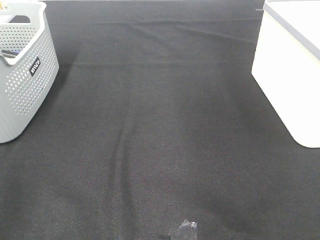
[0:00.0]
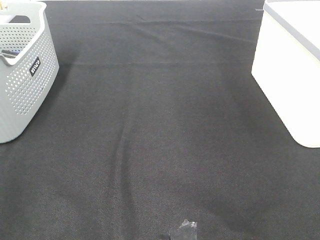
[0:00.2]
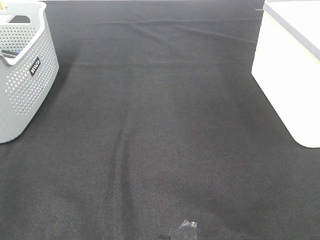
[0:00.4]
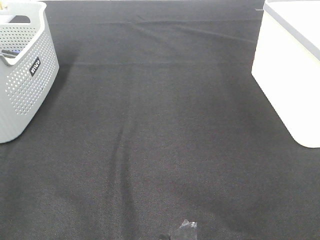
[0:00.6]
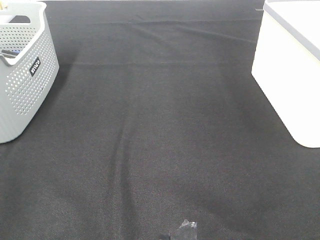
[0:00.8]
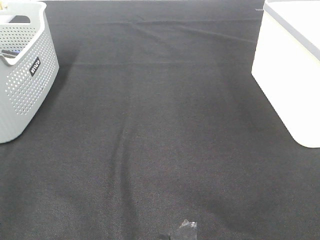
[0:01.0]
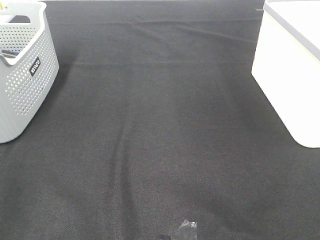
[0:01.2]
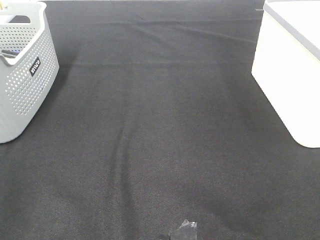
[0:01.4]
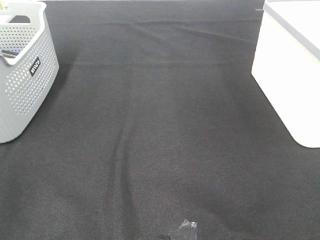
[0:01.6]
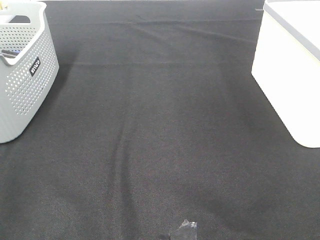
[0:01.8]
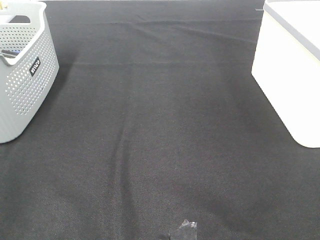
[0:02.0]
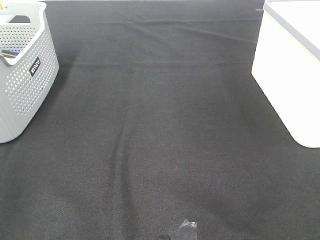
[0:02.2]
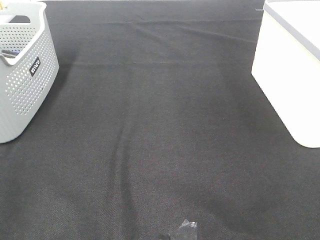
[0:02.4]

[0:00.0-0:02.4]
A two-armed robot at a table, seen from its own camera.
0:01.2 to 0:02.4: The two grippers keep their place.

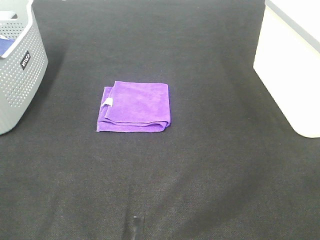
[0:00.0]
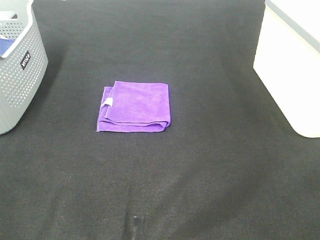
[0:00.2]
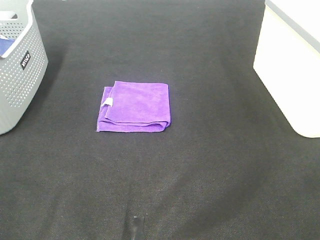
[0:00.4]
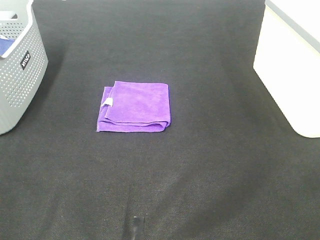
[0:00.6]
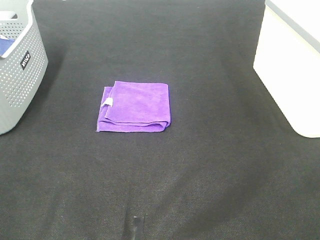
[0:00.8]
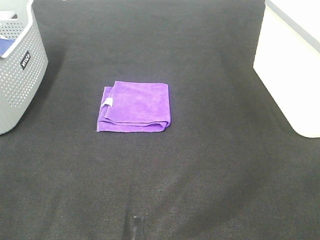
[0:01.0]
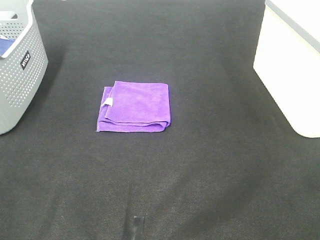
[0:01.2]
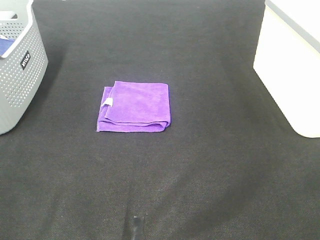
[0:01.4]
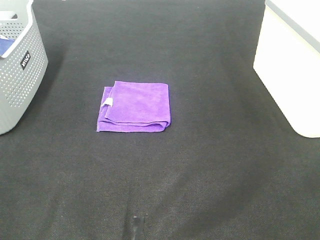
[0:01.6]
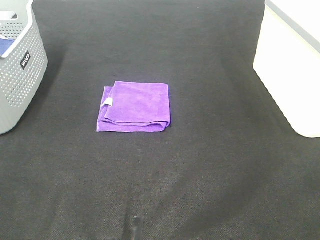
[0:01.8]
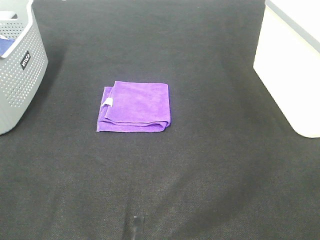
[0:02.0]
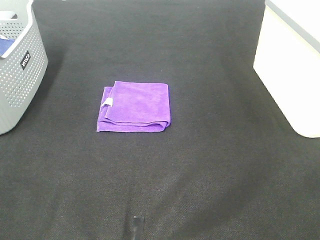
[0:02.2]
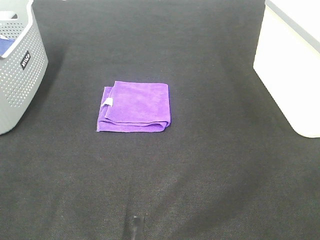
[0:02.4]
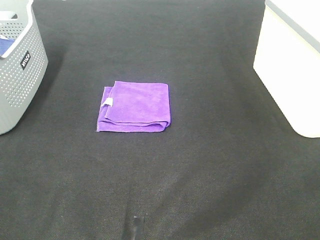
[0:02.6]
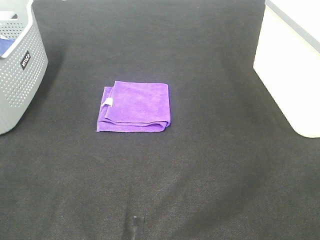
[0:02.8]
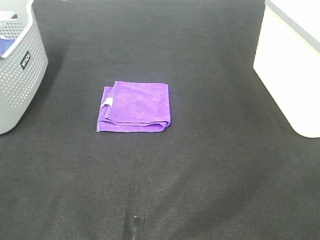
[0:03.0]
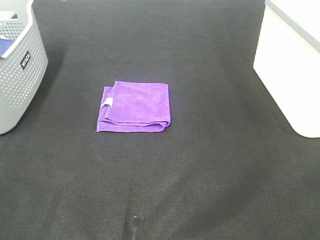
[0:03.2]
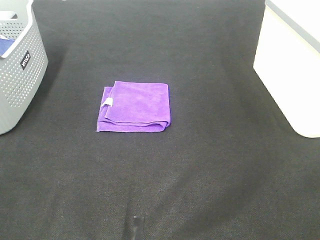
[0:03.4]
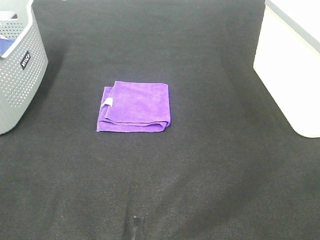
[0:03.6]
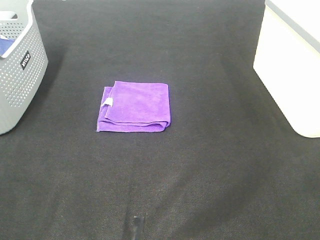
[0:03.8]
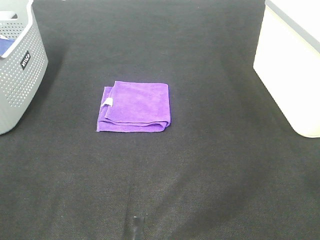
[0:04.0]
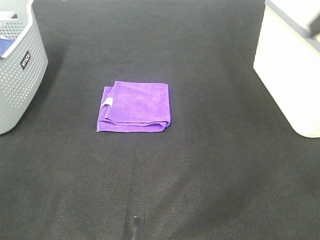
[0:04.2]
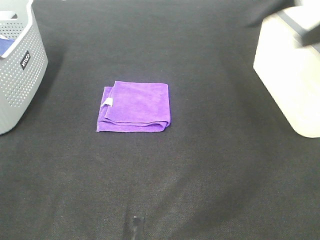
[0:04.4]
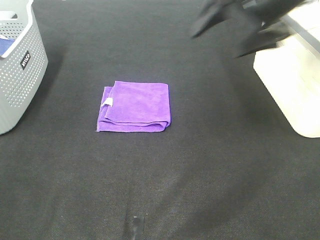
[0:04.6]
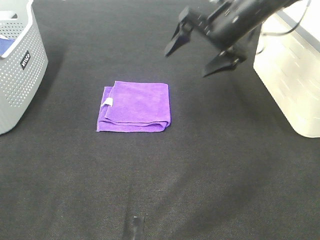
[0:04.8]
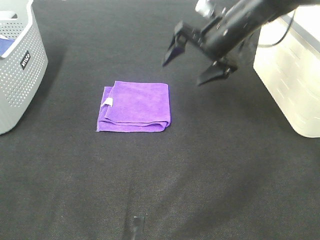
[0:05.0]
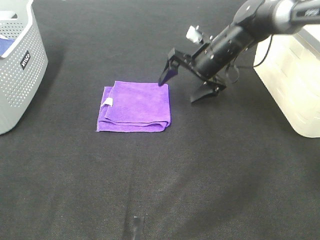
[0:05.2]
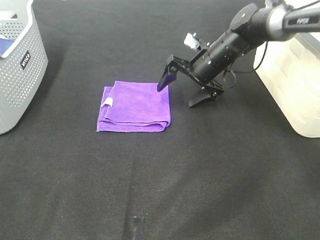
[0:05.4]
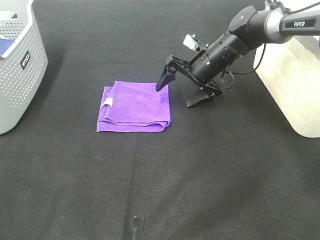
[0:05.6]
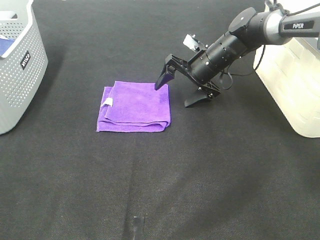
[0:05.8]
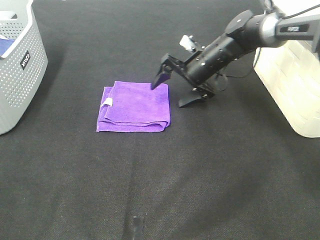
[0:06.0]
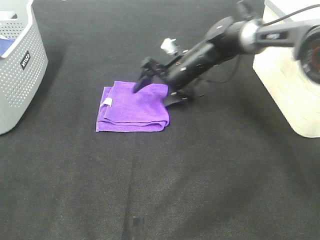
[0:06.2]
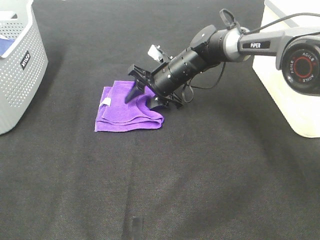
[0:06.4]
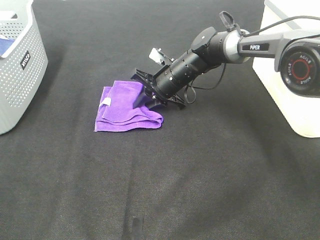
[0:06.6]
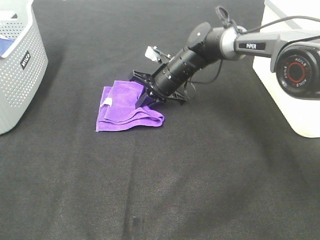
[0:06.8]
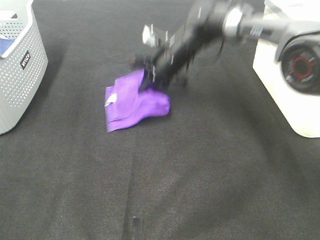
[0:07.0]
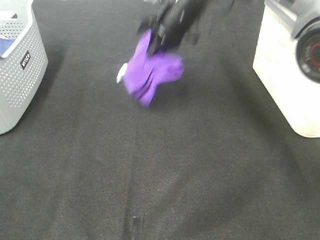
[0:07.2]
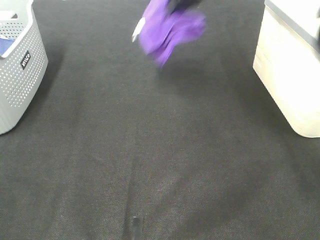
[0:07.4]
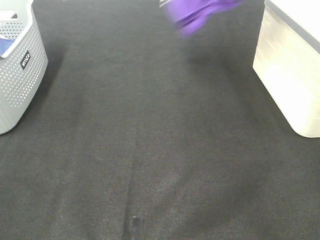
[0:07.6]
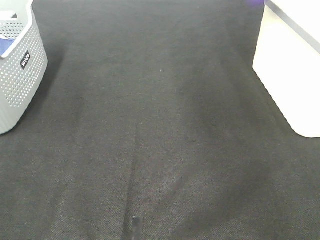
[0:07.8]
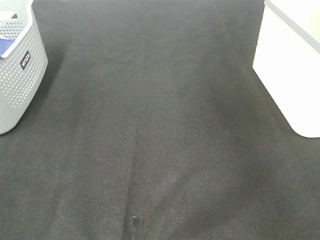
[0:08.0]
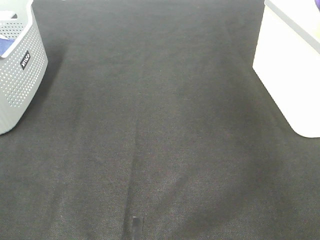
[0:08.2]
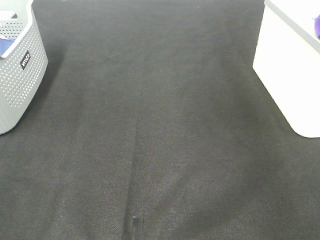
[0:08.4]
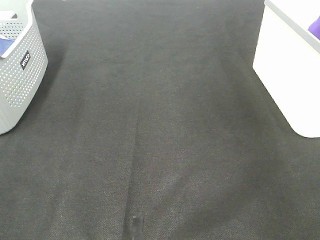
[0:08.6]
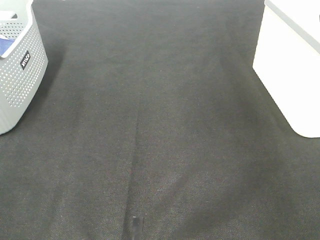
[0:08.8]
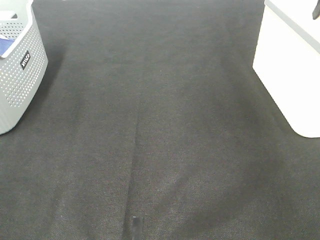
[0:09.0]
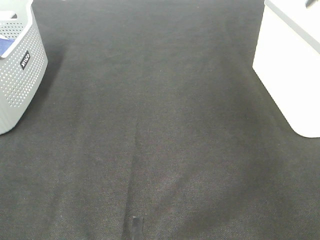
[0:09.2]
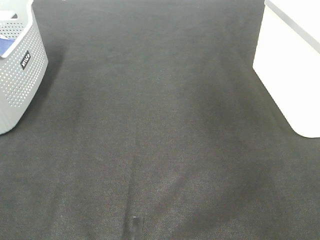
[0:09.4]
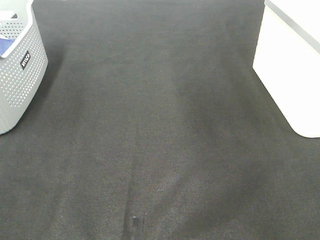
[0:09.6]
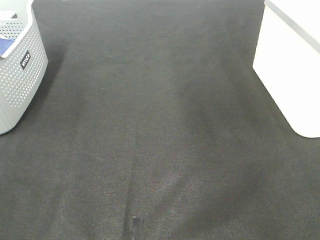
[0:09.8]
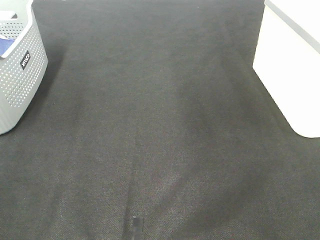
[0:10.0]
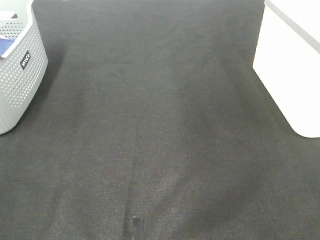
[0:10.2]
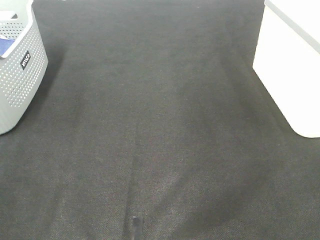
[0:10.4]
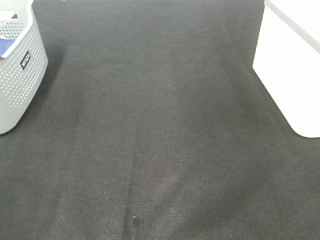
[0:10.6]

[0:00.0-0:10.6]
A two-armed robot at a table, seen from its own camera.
Step, 0:00.0 to 0:06.8: Right hand: grab the folded purple towel.
Step, 0:07.0 to 0:08.6: Right hand: place the purple towel in right basket.
0:00.0 to 0:01.6: The two grippers keep their place.
0:03.0 to 0:04.6: The right gripper goes roughly 40 cm forward.
0:04.6 to 0:06.0: The right gripper heads downward and forward, covering about 20 cm.
0:06.0 to 0:07.6: The right gripper goes approximately 25 cm upward, and closes.
0:07.6 to 0:09.0: The right gripper heads to the right, covering about 25 cm, and opens.

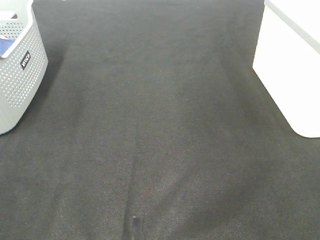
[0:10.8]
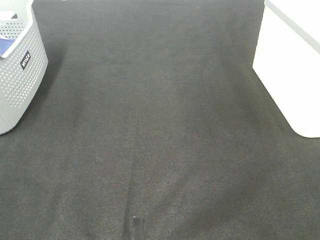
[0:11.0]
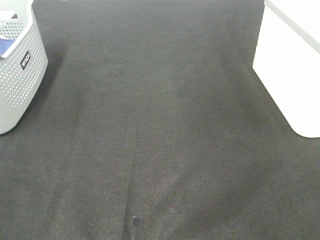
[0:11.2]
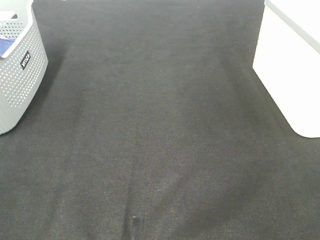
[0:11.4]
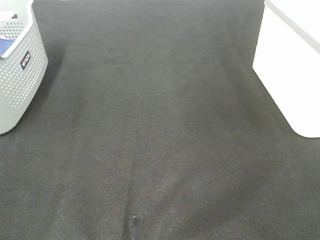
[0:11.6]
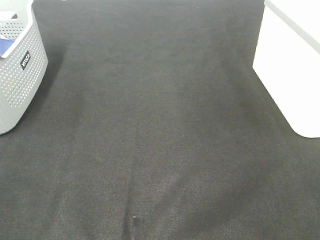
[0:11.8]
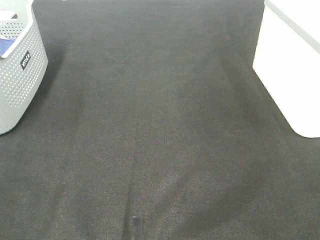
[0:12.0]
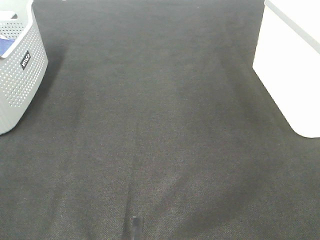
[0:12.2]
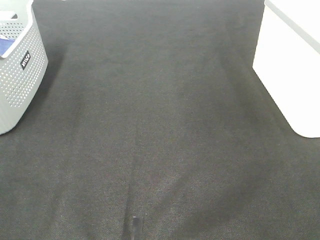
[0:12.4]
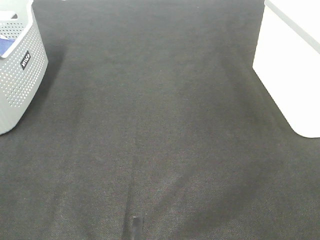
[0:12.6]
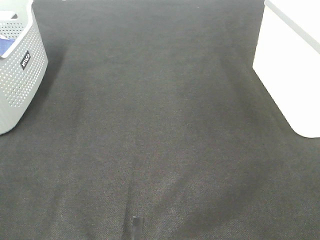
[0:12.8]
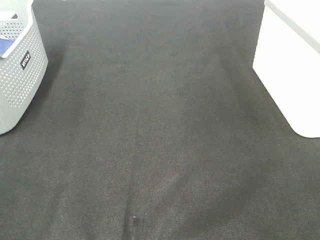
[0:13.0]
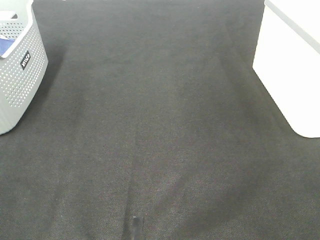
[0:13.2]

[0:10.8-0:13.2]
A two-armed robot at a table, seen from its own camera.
0:12.0 to 0:13.2: The two grippers keep their place.

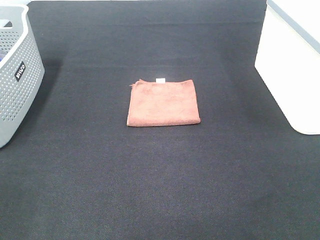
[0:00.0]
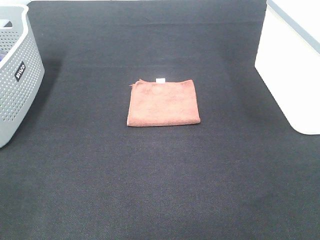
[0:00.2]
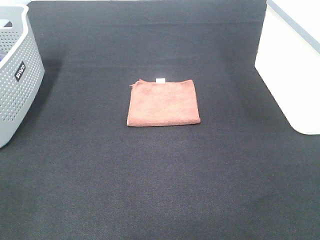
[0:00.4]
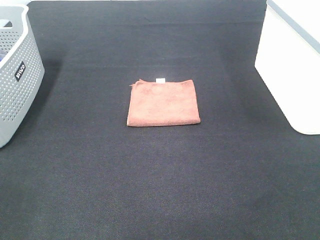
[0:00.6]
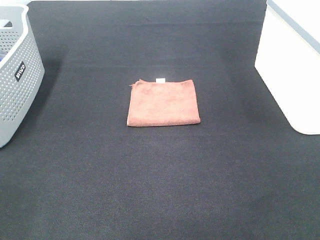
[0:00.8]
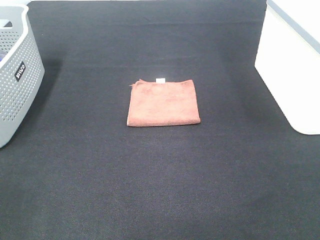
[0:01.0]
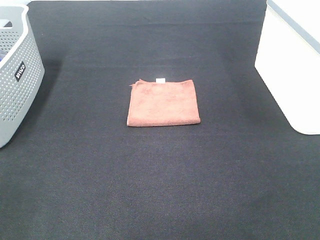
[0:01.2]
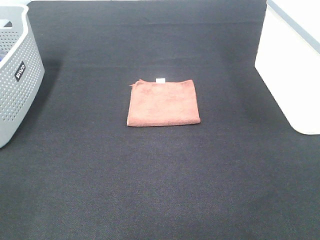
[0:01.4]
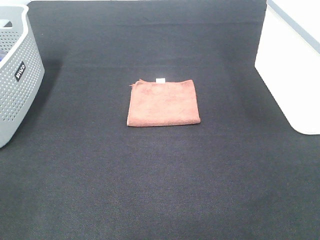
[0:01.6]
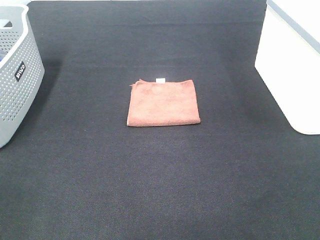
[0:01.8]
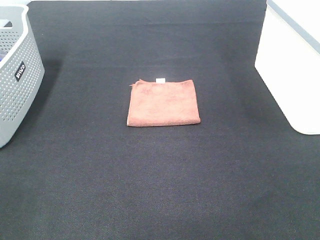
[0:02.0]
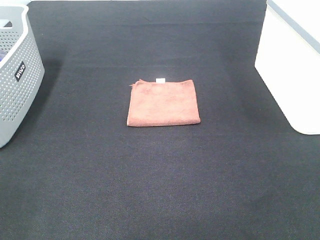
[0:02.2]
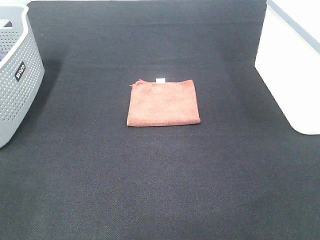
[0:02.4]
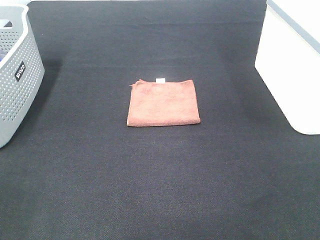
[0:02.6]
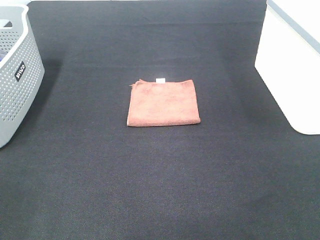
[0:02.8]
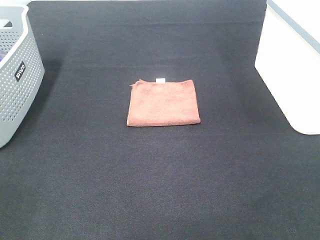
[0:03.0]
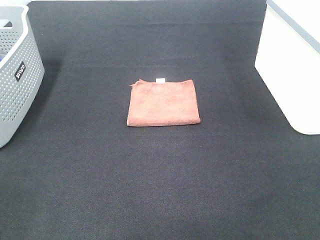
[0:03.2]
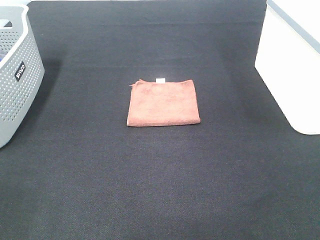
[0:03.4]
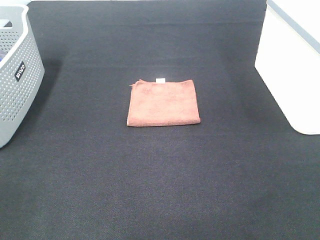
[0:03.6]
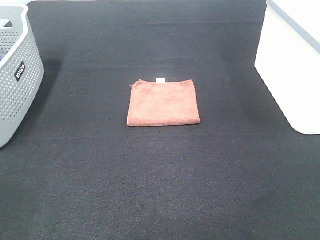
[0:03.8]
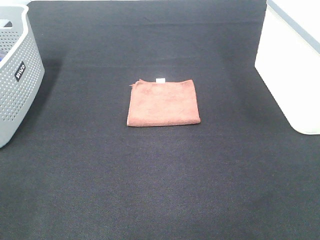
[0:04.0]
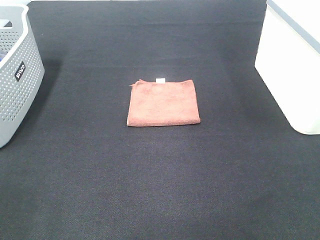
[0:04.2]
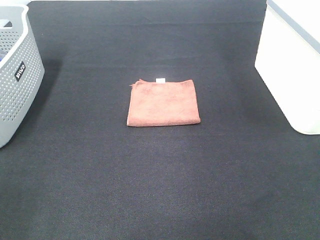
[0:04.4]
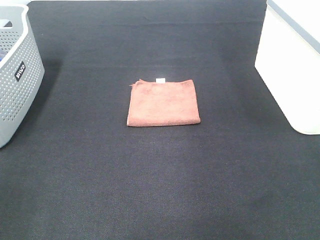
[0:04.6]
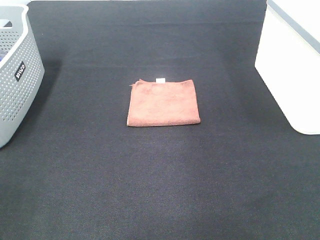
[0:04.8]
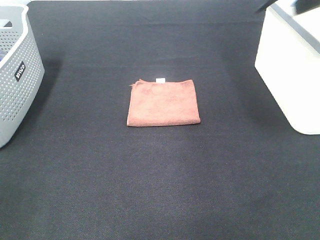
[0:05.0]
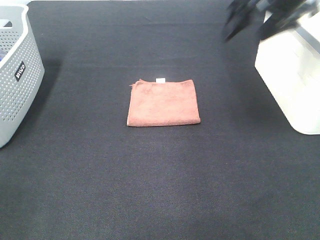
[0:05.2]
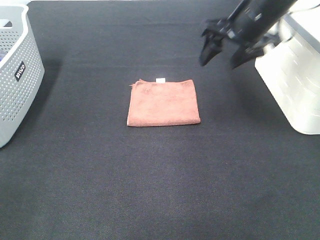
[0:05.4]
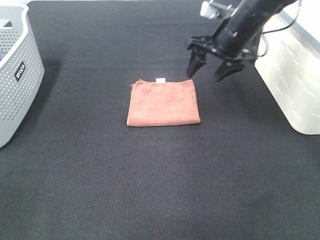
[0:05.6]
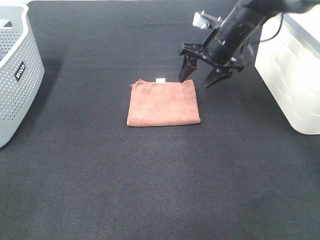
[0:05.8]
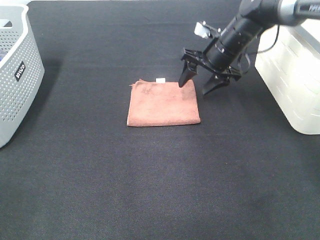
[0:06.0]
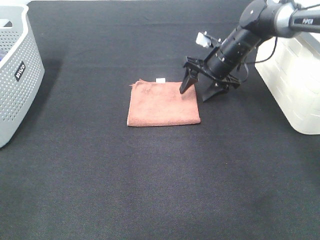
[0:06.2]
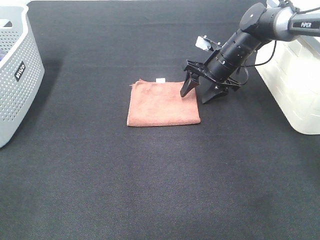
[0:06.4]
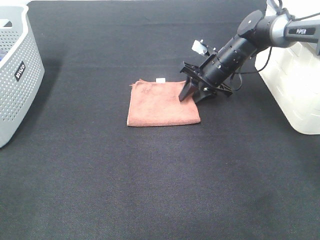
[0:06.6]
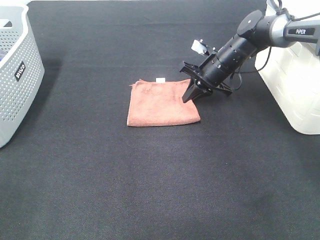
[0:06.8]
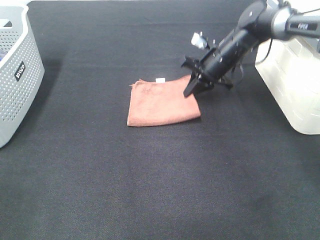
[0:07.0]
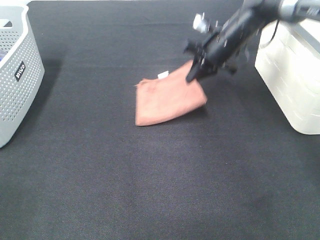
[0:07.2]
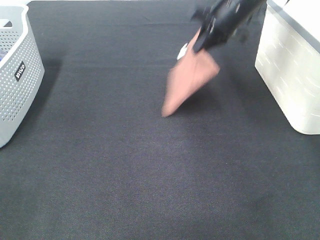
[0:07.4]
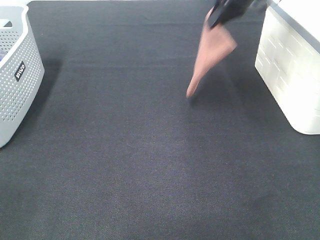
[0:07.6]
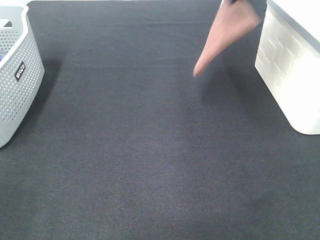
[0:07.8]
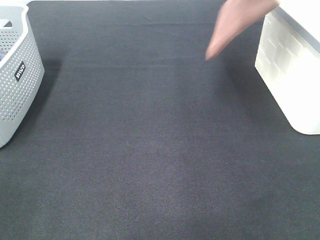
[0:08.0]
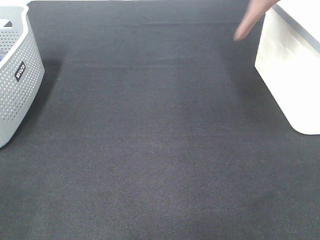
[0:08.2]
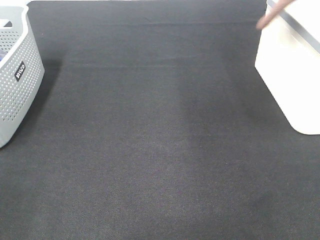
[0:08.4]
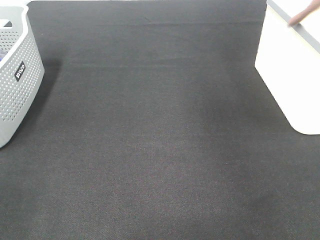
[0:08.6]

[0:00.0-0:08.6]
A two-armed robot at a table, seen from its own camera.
Step, 0:00.0 to 0:07.0: Right hand: grab the folded brown towel.
0:00.0 to 0:02.8: Both grippers stay put.
0:04.4 to 0:05.8: The right gripper travels forward, downward and to the left by some 40 cm.
0:05.8 to 0:07.2: The right gripper closes.
0:07.2 to 0:08.6: The right gripper is displaced upward and to the right by about 35 cm.
